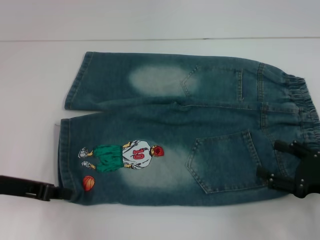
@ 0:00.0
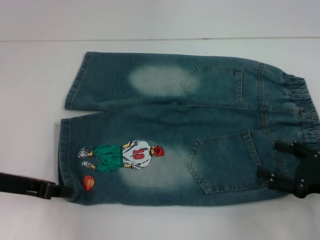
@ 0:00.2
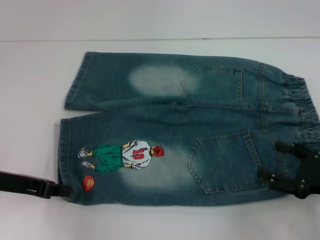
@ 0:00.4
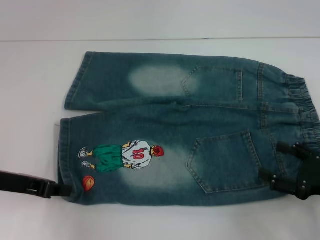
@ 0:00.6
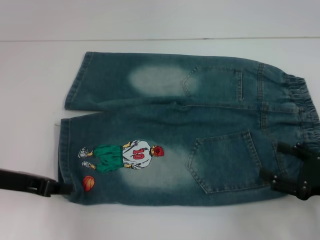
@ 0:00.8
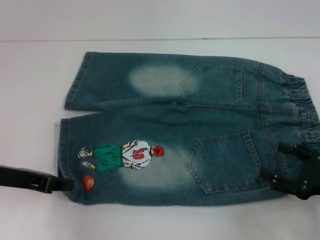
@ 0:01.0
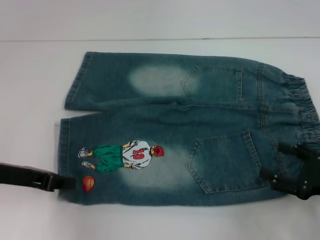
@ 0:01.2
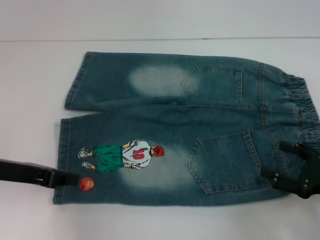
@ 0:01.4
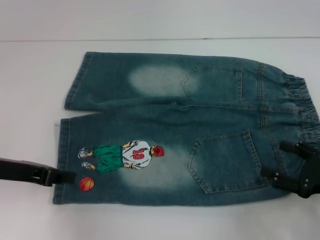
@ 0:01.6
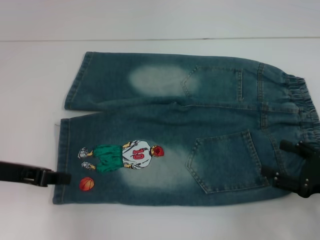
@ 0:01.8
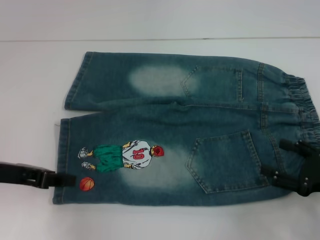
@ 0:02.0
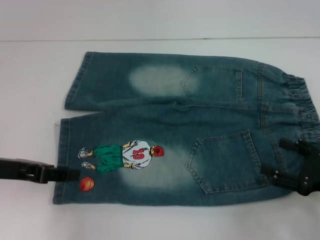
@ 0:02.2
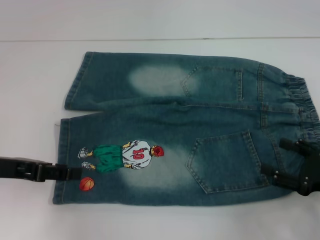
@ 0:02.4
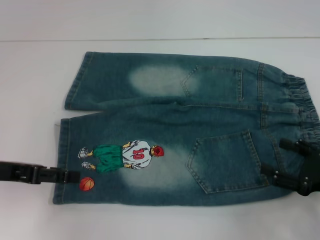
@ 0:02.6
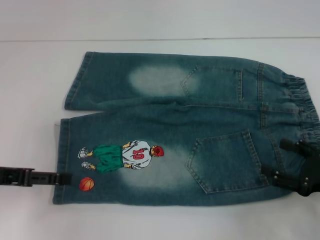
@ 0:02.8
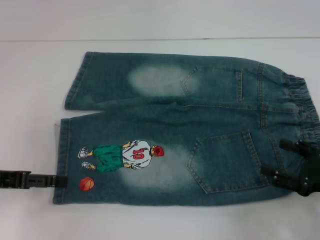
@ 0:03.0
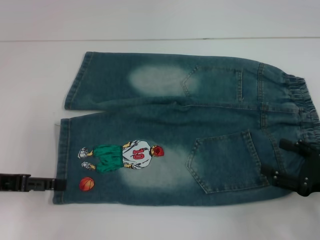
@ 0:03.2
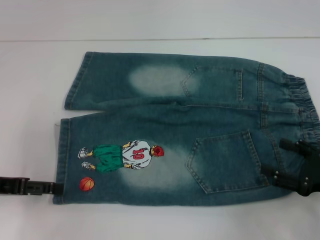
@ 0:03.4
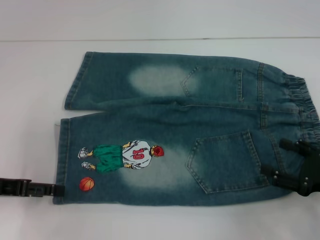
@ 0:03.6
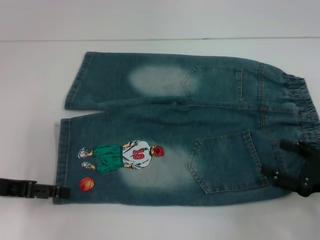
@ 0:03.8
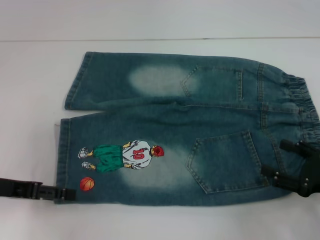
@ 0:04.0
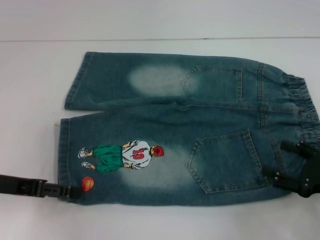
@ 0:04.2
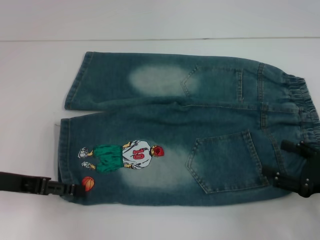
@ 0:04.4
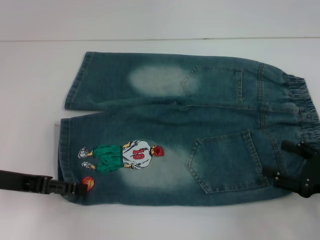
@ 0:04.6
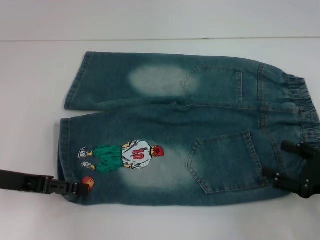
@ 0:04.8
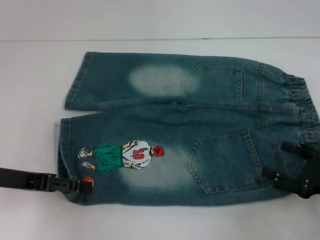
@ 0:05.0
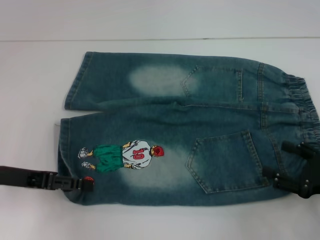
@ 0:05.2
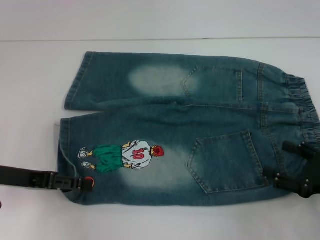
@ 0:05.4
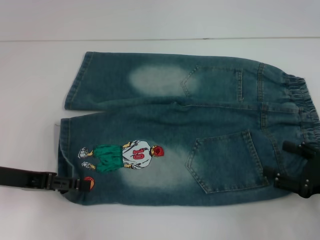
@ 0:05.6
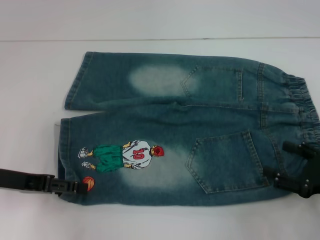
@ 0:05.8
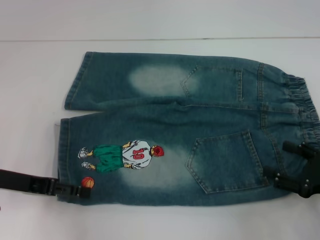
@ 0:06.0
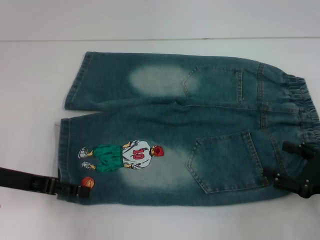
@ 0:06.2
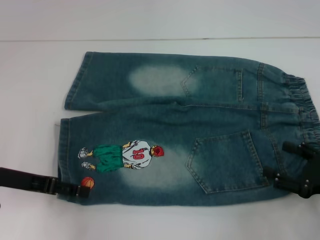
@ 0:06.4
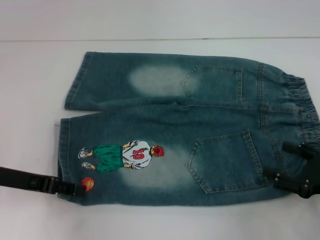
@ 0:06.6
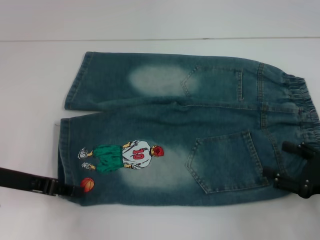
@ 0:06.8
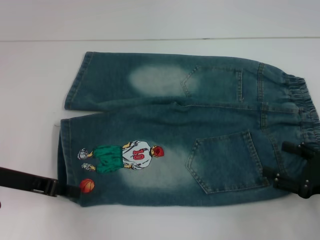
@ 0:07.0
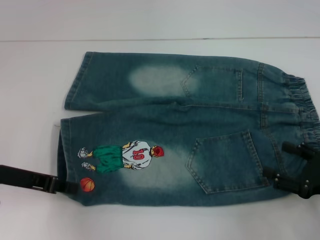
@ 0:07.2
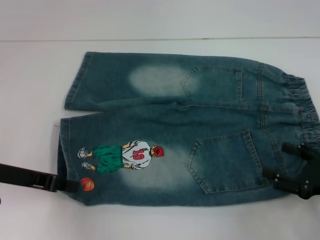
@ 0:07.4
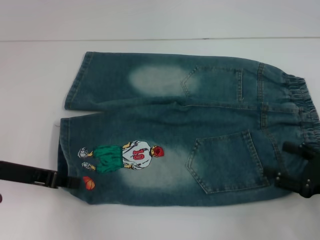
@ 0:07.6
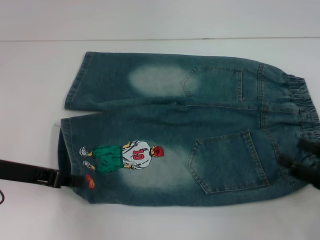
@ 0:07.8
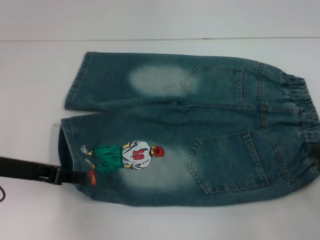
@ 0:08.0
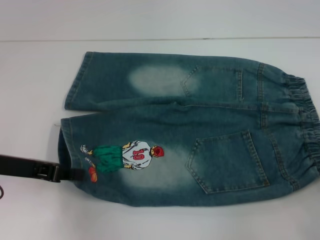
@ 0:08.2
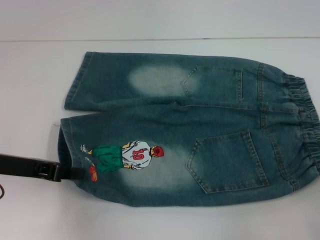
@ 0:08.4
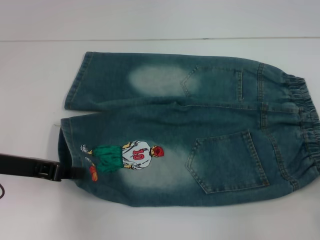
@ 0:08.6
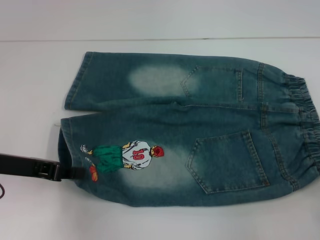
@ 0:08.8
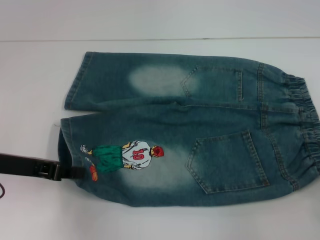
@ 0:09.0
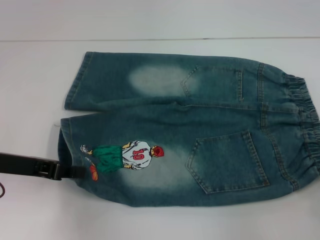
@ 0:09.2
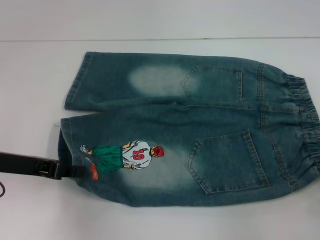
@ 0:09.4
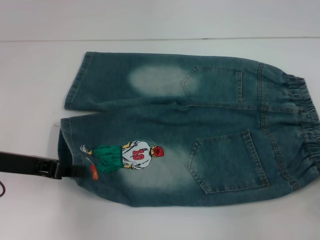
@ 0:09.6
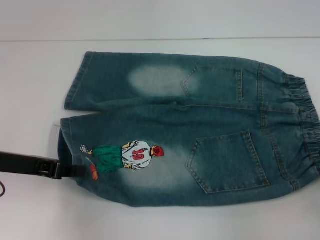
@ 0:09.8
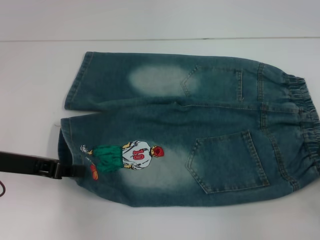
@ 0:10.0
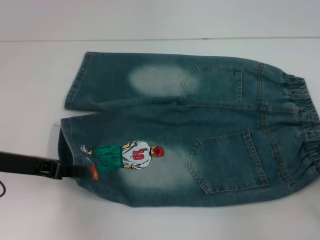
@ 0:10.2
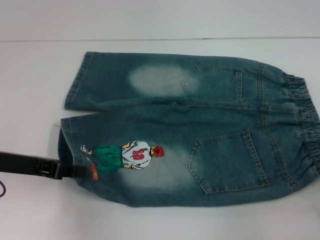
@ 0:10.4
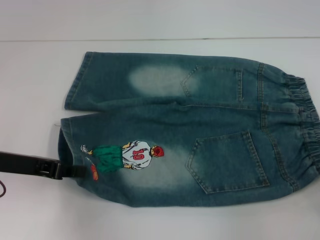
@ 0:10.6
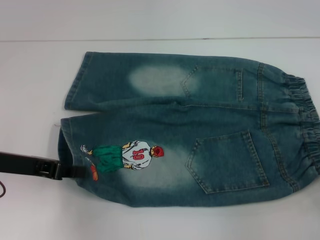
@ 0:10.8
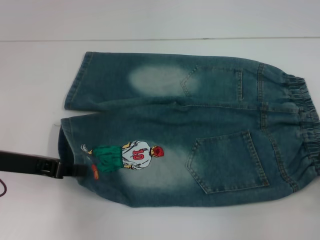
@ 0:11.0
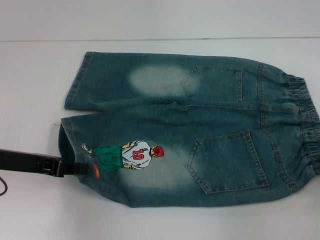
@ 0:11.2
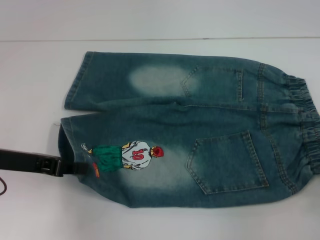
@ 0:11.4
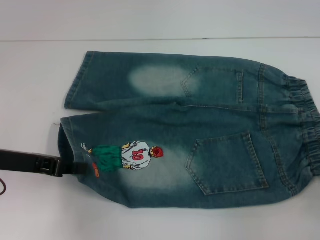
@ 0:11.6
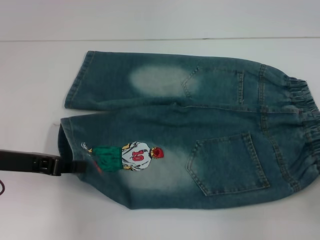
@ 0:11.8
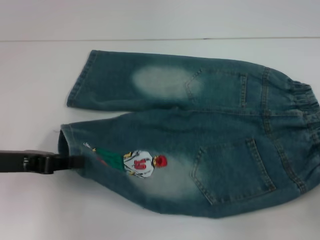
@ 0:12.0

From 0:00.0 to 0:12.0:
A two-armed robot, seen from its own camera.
Step, from 0:00.0 to 0:07.2: Grab the lower left pant leg with your left hand.
Step, from 0:07.6 to 0:11.6: Hold the lower right waistband with your right hand.
From 0:00.0 to 0:01.6: The grippers move only a little.
From 0:01.6 to 0:03.0: The left gripper opens.
From 0:03.0 to 0:04.4: The grippers move only a little.
From 0:06.0 to 0:07.6: The left gripper closes up.
From 0:07.6 to 0:09.0: The right gripper travels to the right by some 5 cm.
From 0:10.4 to 0:12.0: The right gripper closes up.

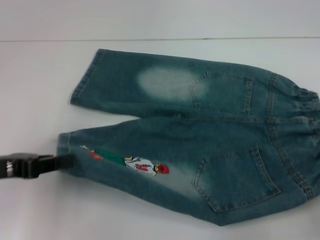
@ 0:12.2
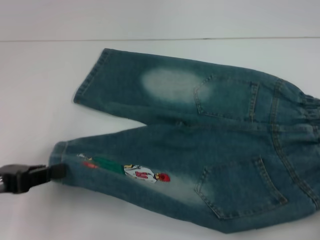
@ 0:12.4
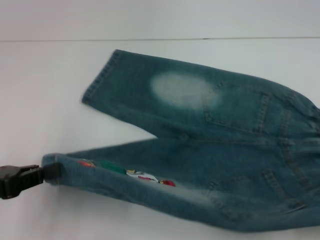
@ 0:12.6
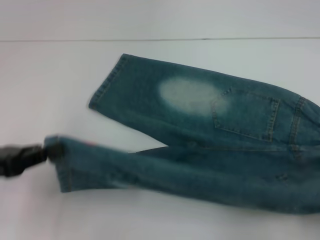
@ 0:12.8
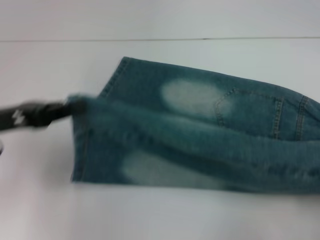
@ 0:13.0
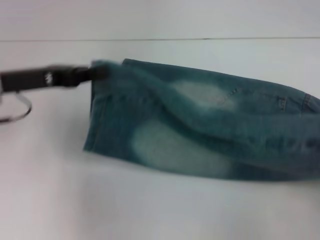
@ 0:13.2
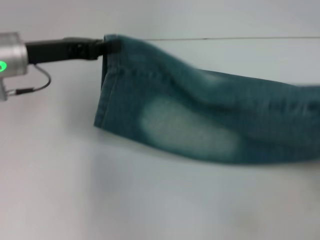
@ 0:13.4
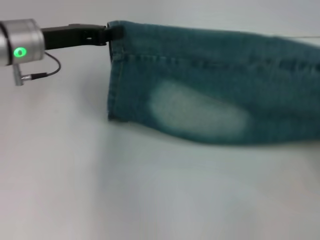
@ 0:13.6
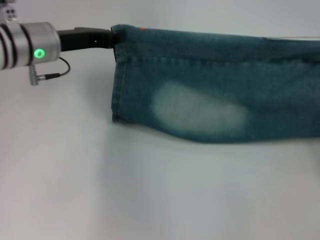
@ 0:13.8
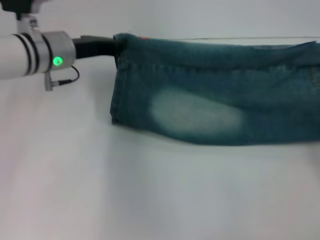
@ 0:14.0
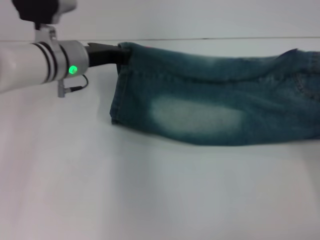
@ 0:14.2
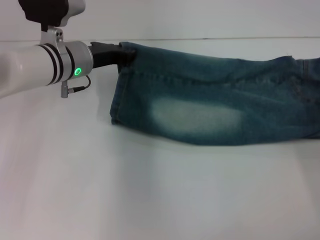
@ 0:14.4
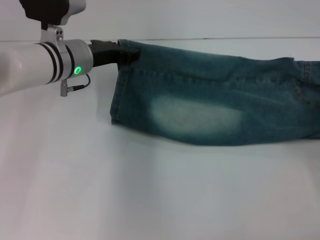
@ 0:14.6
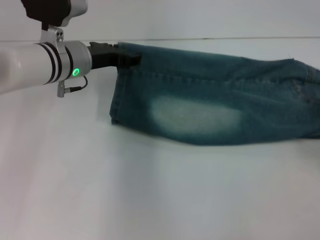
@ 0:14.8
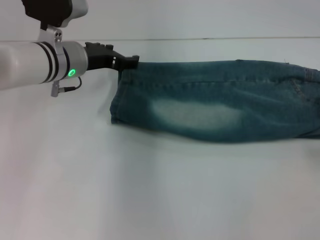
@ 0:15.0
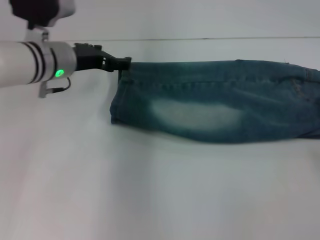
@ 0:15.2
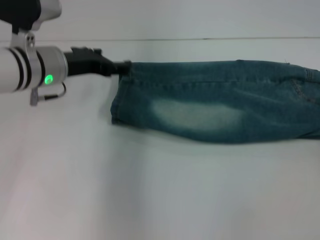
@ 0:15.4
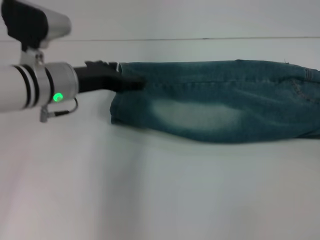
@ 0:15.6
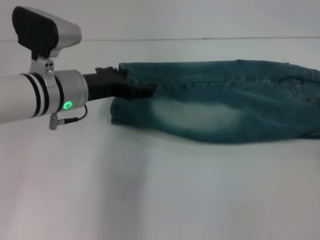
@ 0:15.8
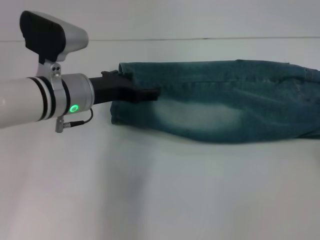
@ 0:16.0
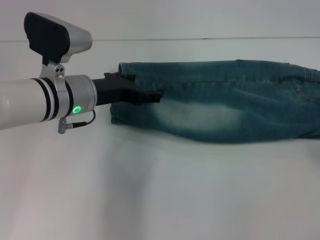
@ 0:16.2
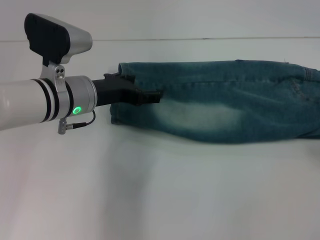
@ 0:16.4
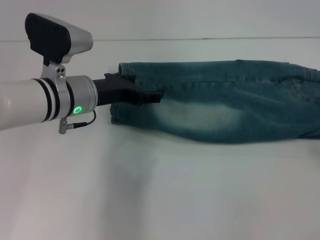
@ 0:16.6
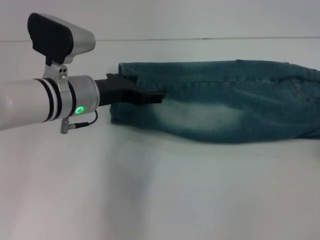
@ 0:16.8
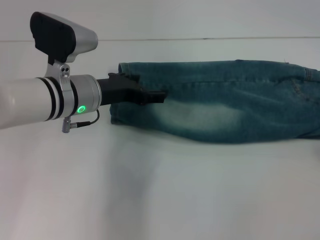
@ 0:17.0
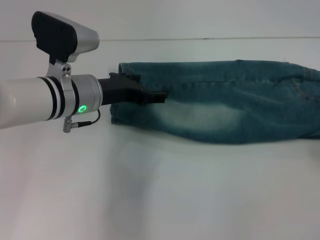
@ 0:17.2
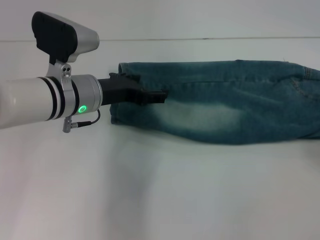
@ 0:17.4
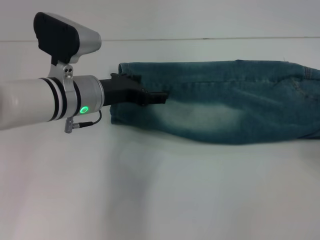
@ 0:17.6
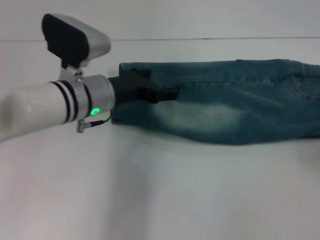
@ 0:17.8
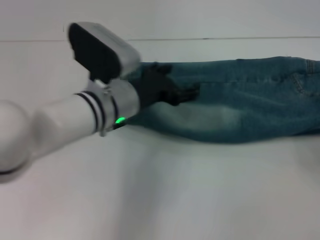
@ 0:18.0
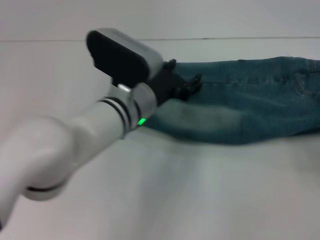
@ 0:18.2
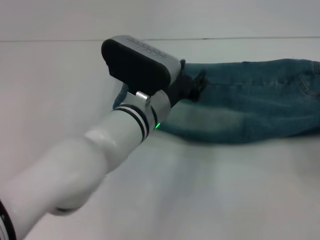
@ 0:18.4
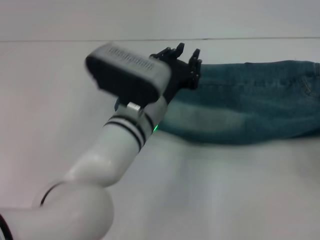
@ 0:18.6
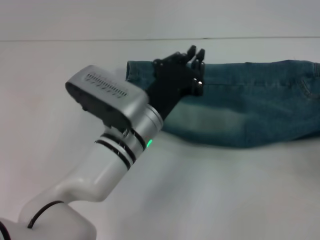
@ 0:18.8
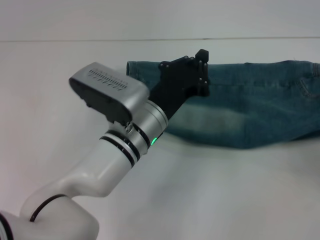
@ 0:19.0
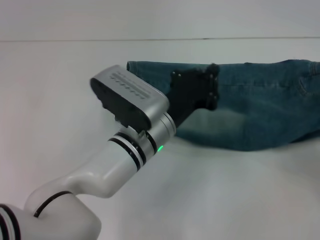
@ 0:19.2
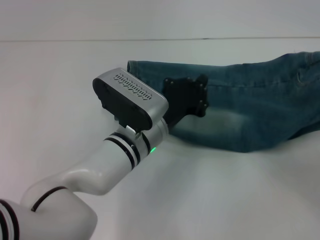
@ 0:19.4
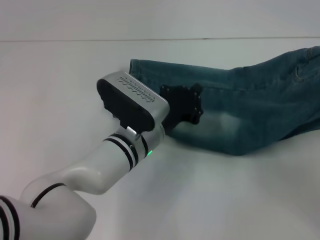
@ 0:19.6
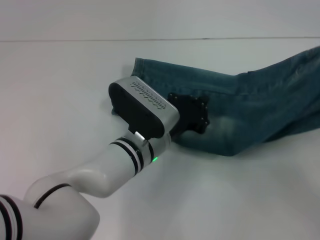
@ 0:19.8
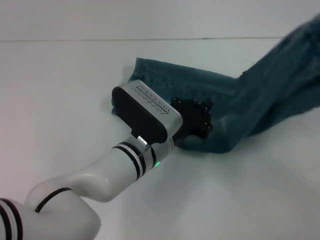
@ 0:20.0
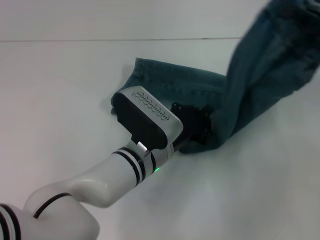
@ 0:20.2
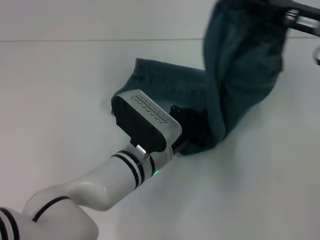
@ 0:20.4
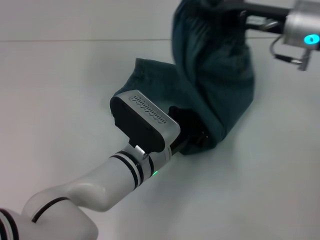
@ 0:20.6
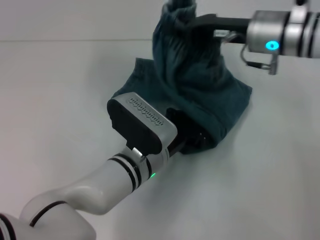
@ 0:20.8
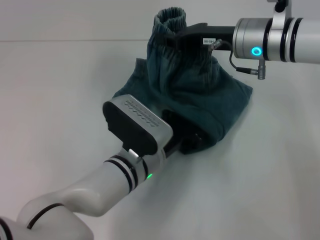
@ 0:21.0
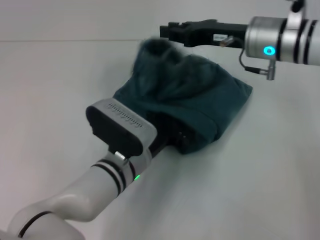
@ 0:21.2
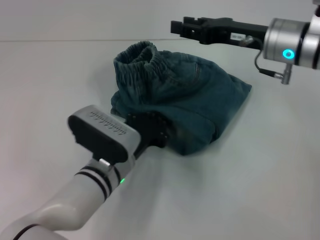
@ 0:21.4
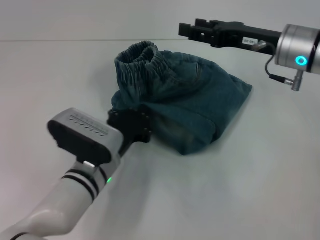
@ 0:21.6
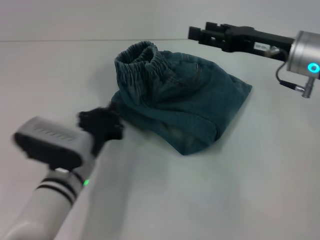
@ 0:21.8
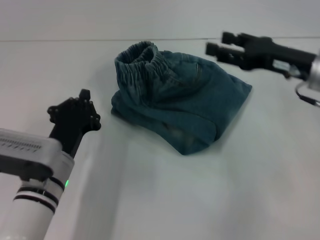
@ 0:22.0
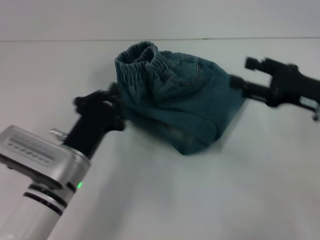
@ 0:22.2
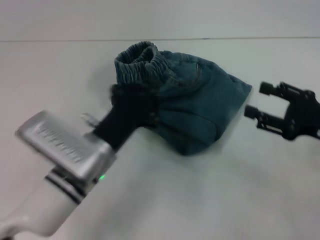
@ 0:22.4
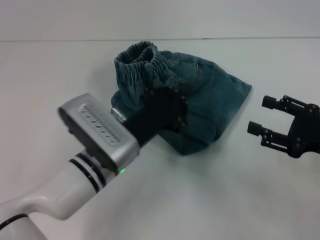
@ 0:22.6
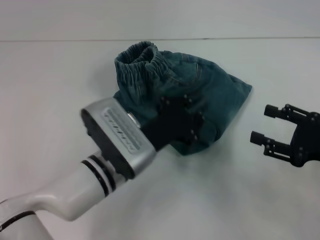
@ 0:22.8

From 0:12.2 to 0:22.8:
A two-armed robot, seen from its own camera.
Step, from 0:12.2 to 0:14.8: Fold upward with your right hand.
Step, from 0:15.0 to 0:17.6: Grab the waistband with your right hand.
Step, from 0:17.8 to 0:21.0: Press the middle of the pants with your left hand.
From 0:12.2 to 0:13.8: The left gripper heads forward and to the right, covering approximately 20 cm; the right gripper goes some 10 cm forward.
From 0:13.8 to 0:15.2: The right gripper opens its fingers; the left gripper opens up.
From 0:15.2 to 0:16.8: The left gripper heads backward, covering roughly 5 cm.
From 0:16.8 to 0:18.2: The right gripper closes; the left gripper travels to the right by approximately 10 cm.
From 0:18.2 to 0:19.8: The left gripper is displaced downward by about 5 cm, and closes; the right gripper goes approximately 5 cm upward.
From 0:19.8 to 0:21.2: The right gripper is displaced to the left and forward by about 25 cm.
From 0:21.2 to 0:22.8: The left gripper goes to the left and returns, approximately 10 cm each way. Meanwhile the right gripper travels backward, to the right and downward by some 25 cm, and opens.
